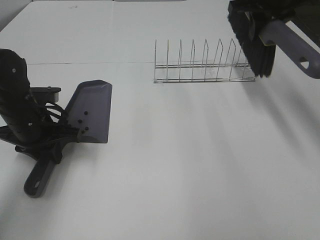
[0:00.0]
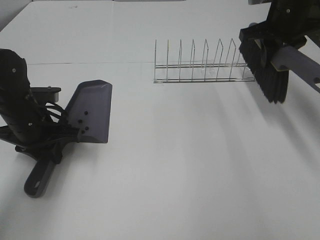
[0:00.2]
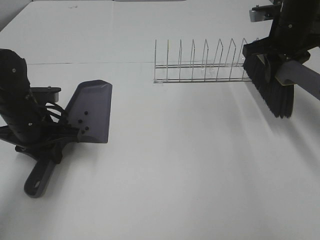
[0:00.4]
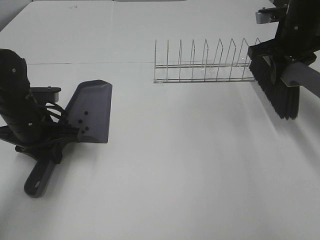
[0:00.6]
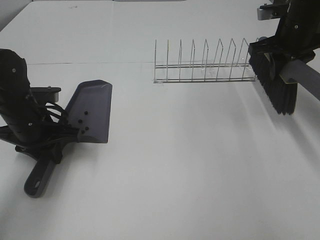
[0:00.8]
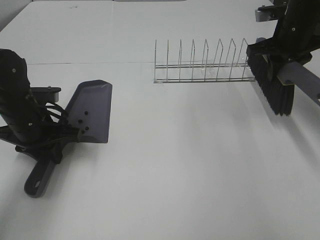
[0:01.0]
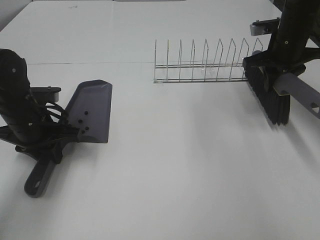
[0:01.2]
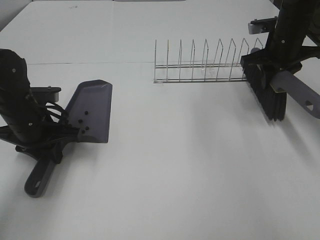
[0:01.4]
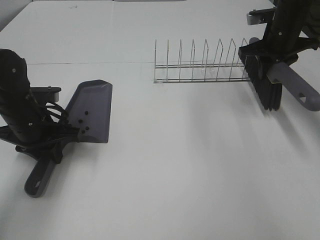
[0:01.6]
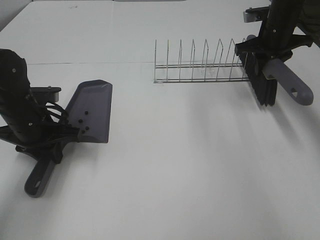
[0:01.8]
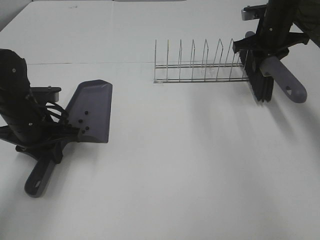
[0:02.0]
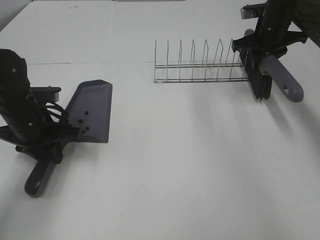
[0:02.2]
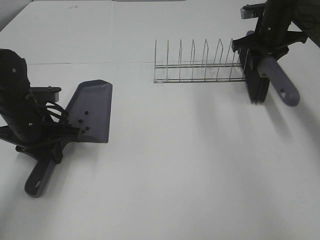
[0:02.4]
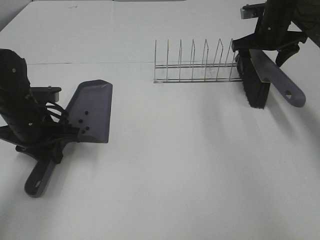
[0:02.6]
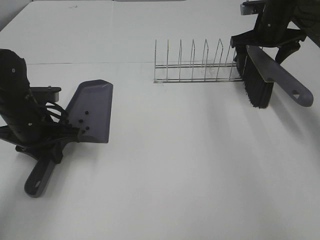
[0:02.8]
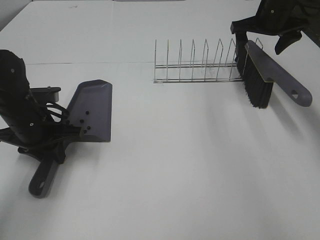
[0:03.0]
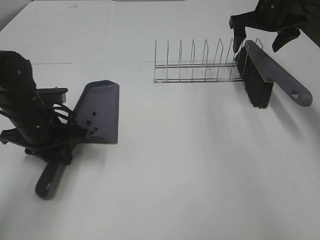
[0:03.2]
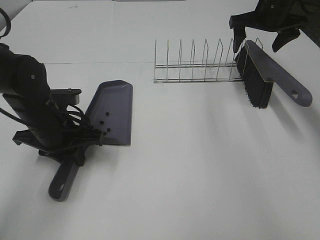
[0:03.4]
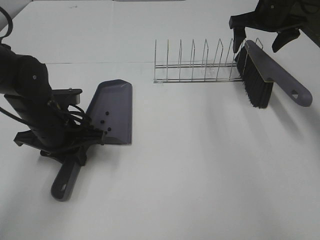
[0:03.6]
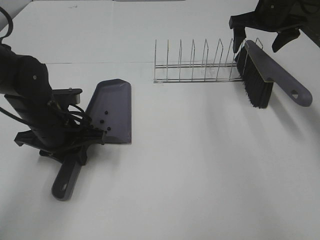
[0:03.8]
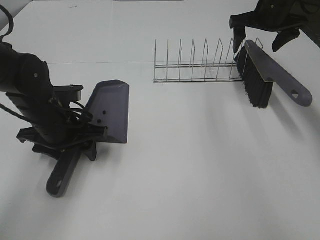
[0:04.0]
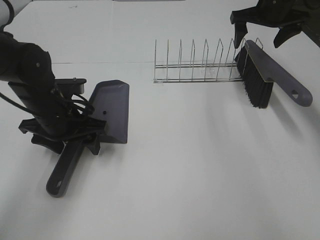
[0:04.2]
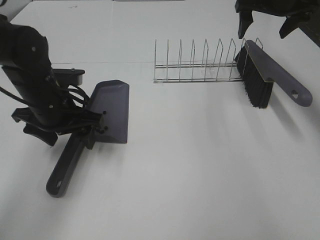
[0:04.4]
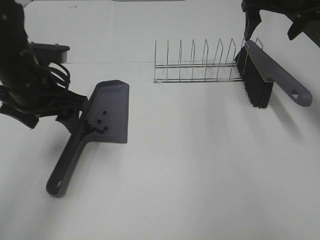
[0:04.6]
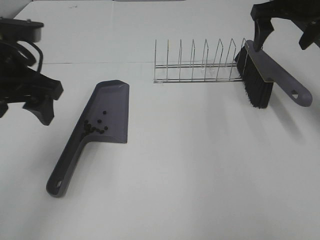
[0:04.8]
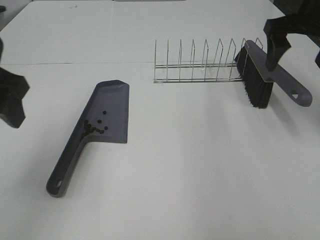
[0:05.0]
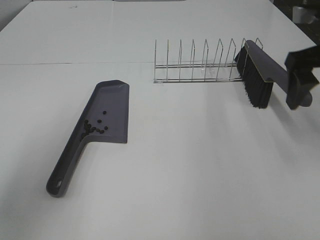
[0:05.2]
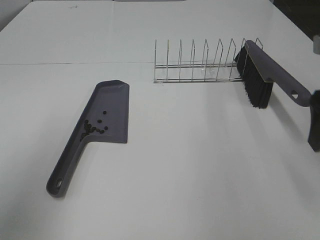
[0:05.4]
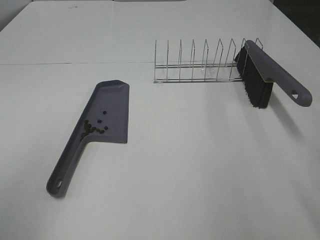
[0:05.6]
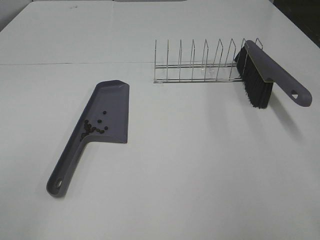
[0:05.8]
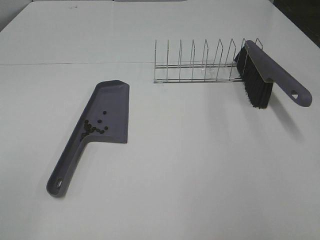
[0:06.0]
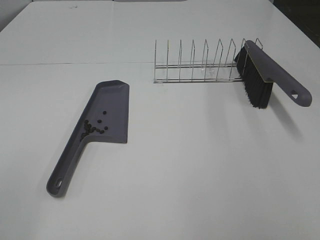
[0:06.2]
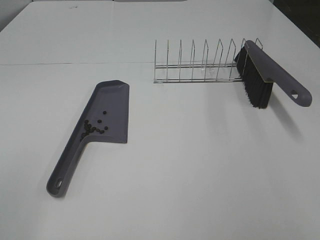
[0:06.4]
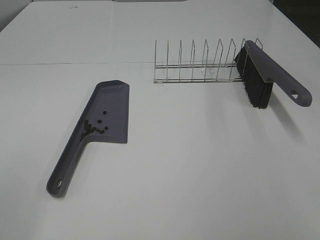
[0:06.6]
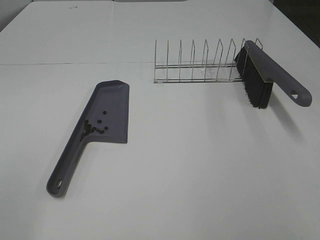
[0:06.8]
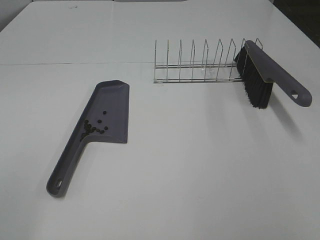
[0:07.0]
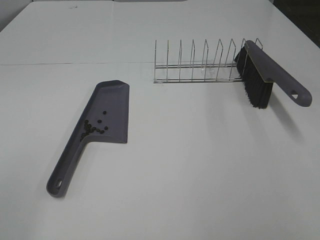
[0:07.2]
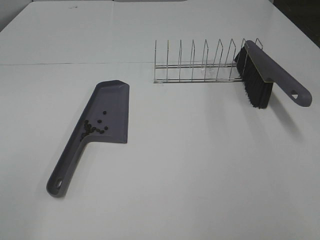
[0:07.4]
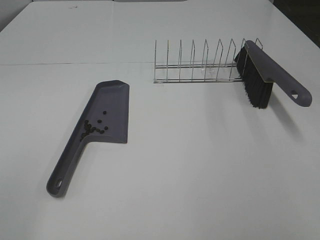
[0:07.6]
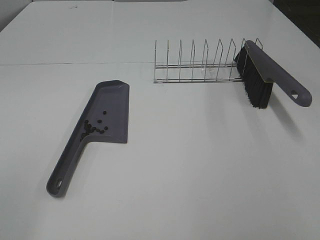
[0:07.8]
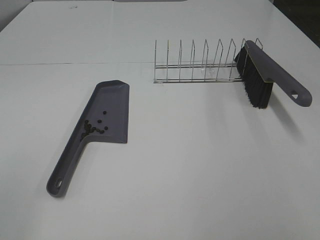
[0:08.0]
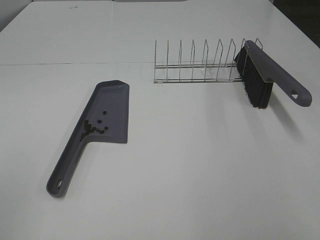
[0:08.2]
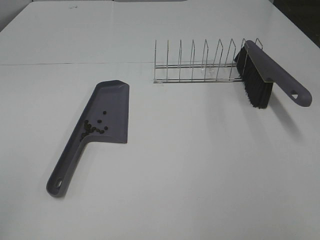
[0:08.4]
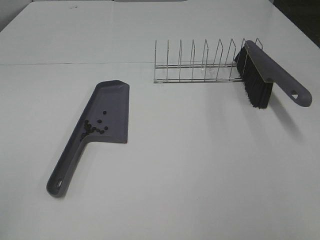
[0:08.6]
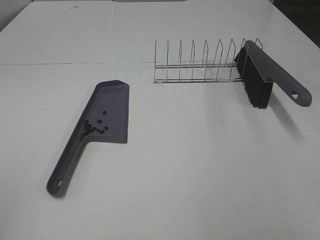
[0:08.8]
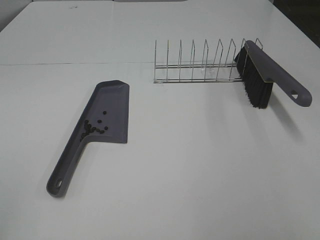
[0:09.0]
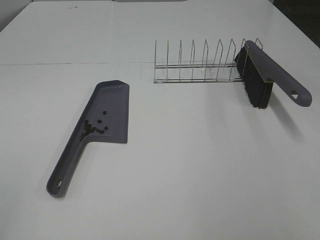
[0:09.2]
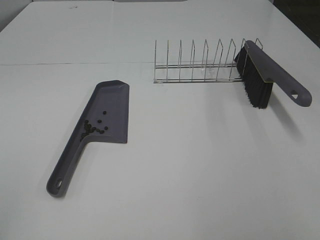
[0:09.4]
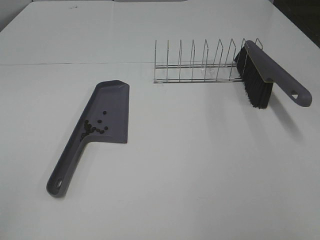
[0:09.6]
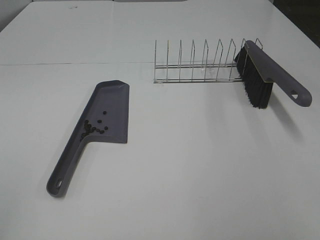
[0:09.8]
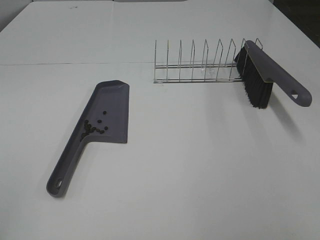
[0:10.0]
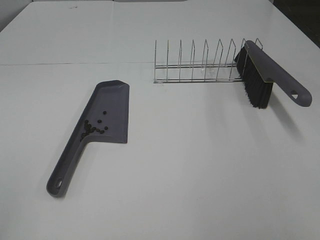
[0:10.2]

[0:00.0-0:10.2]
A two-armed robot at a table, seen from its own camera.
Task of the whole recording: Sweep Coffee Bean.
Step, 0:00.0 to 0:02.8: Right hand:place the broom on the rack.
Step, 0:03.0 to 0:04.2: Left hand:place the dustpan on the table.
0:00.0 to 0:01.4: The right gripper heads downward, covering some 10 cm.
0:01.4 to 0:03.0: The right gripper shifts some 5 cm forward, and opens up.
0:03.0 to 0:04.4: The right gripper ends up roughly 5 cm from where it was; the left gripper changes place by roughly 5 cm, and opens.
0:04.4 to 0:05.8: The right gripper shifts roughly 40 cm backward, while the left gripper travels backward, upward and to the left by about 35 cm.
0:08.8 to 0:10.2: The two grippers keep their place.

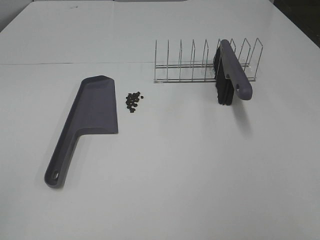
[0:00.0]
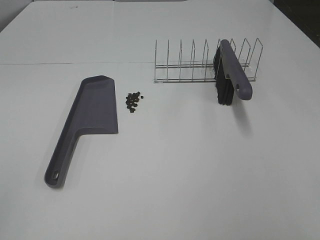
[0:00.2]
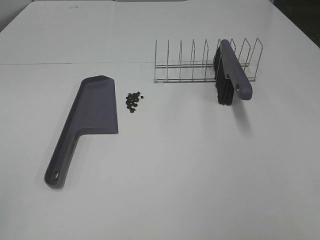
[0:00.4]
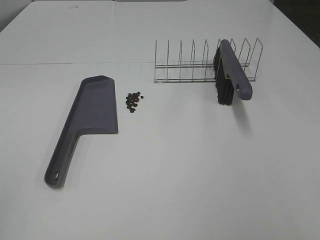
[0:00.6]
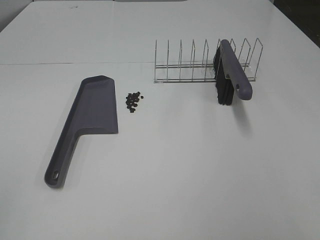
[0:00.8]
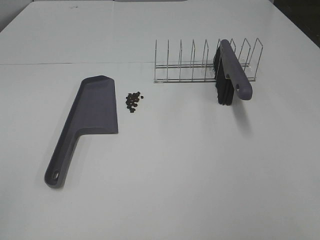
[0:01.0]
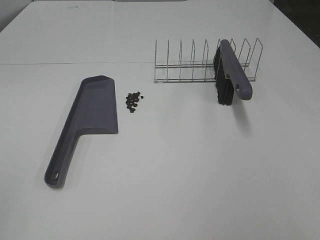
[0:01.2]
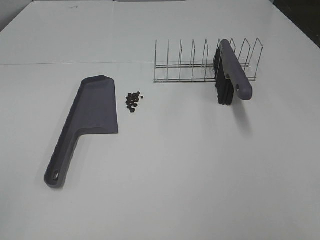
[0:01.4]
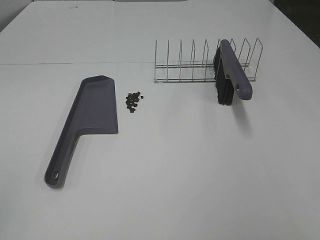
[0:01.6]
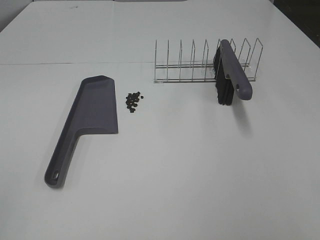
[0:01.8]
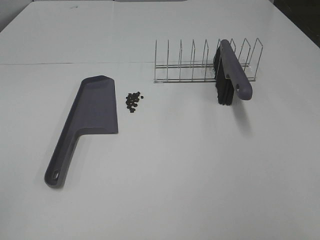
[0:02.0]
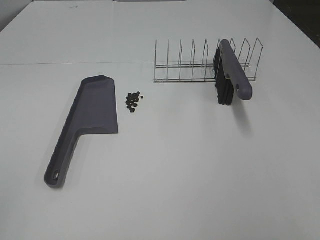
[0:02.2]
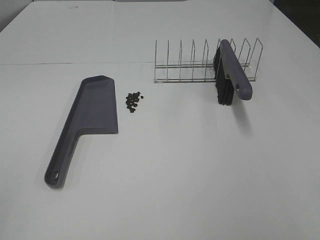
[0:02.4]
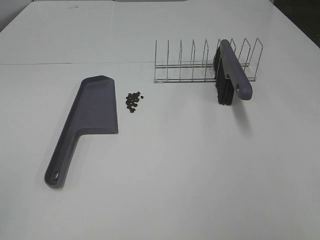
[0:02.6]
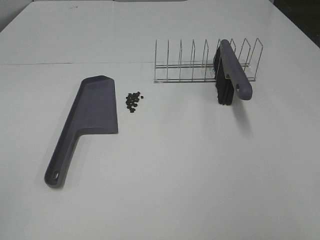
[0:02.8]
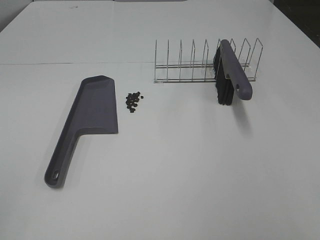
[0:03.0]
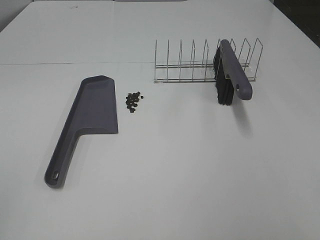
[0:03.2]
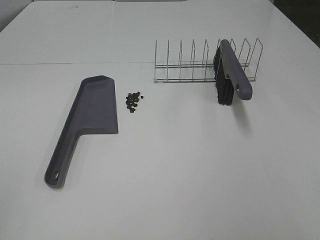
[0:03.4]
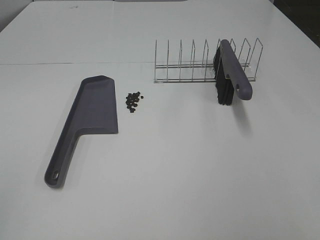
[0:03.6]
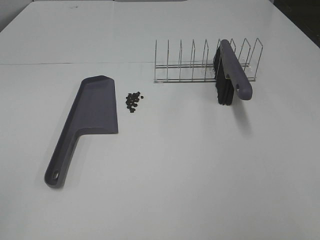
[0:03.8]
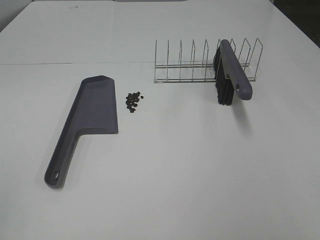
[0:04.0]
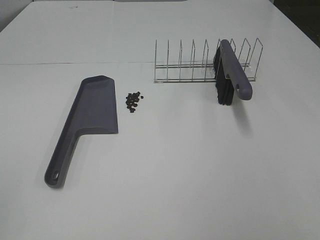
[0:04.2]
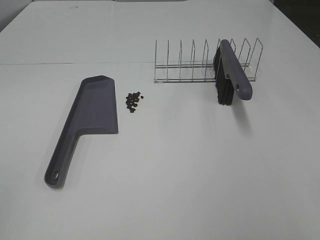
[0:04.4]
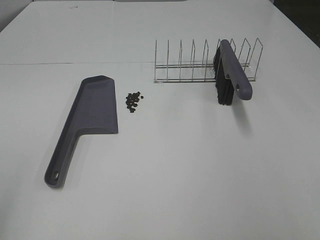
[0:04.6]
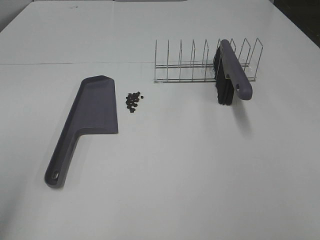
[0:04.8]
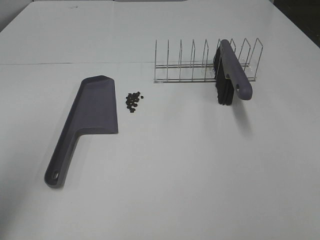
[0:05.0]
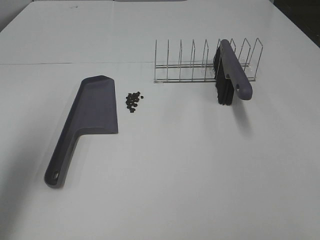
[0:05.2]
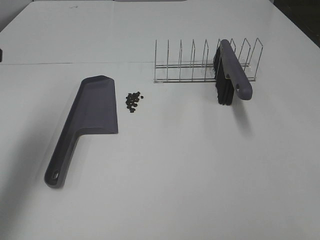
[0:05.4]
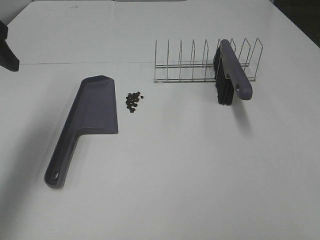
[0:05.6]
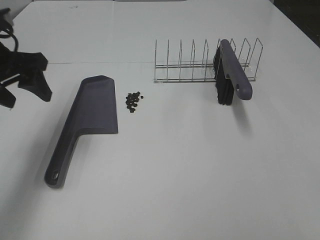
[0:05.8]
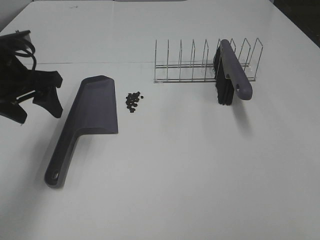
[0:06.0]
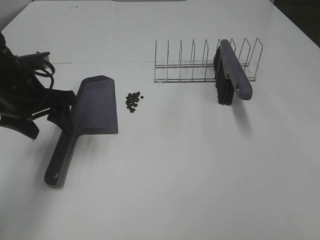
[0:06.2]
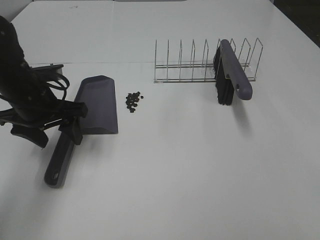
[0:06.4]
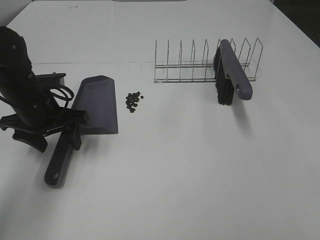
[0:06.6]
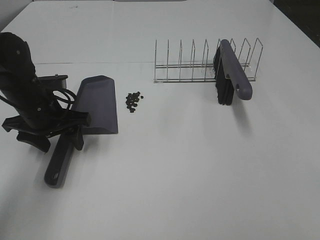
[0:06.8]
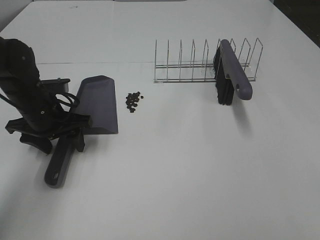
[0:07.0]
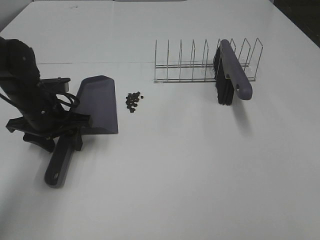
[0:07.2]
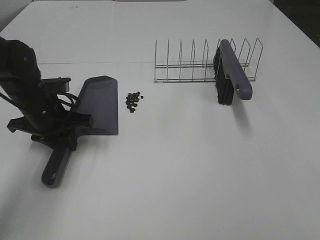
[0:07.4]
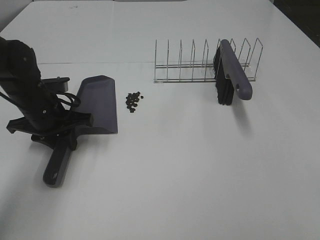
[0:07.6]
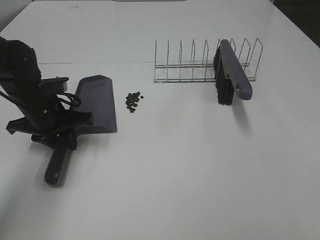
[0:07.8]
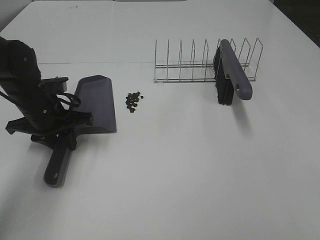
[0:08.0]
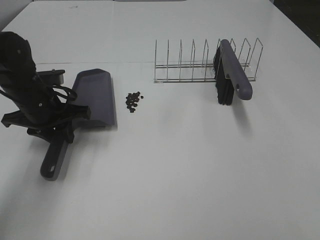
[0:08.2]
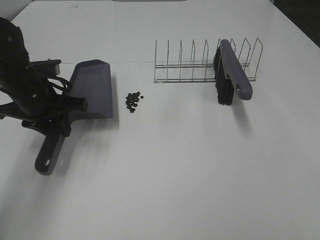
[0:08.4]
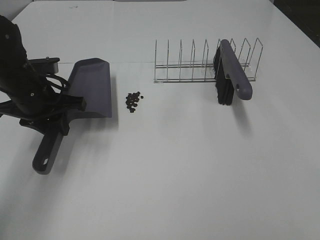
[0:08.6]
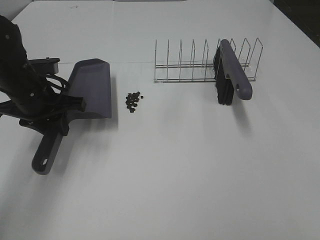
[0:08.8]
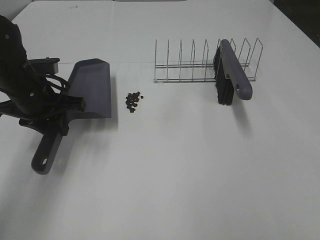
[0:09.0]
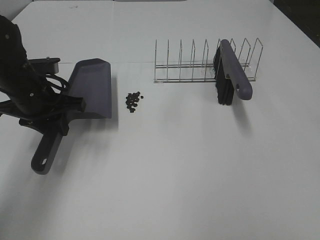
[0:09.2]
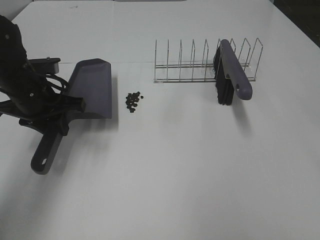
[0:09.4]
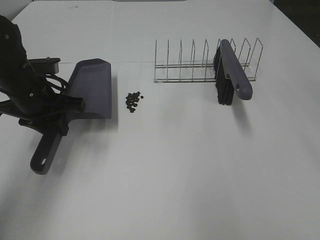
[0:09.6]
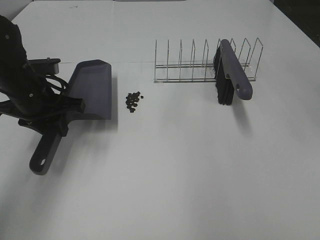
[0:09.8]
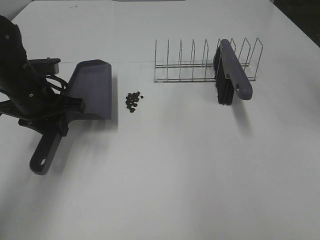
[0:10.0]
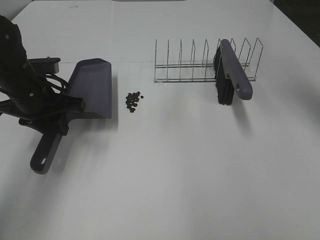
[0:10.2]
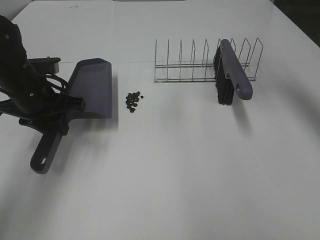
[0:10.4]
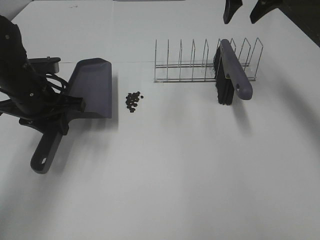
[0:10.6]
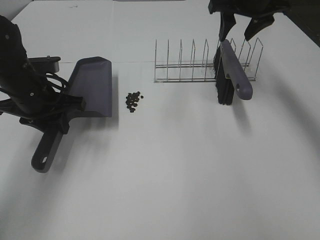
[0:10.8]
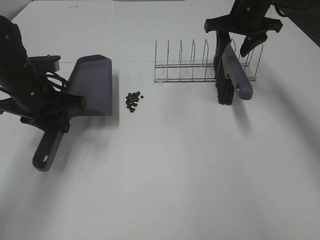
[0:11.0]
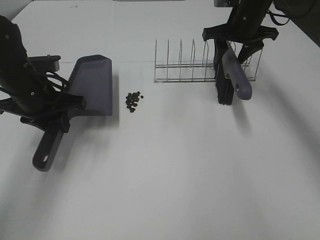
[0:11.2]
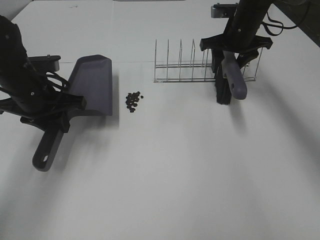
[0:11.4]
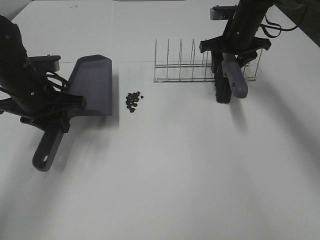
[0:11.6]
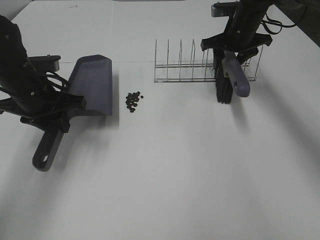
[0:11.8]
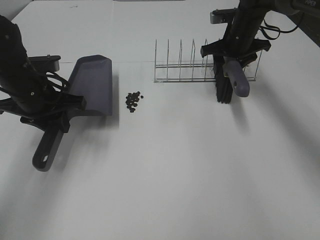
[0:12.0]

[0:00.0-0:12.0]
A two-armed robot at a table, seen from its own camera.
Task of the whole recording: Sweep Coffee Bean.
Step, 0:00.0 to 0:07.4: Left hand: grab the dustpan.
0:00.0 to 0:03.0: The two grippers keep their place.
0:04.4 to 0:06.0: The left gripper goes roughly 35 cm forward.
0:06.0 to 0:07.6: The left gripper heads downward, covering about 10 cm, and closes its fingers.
0:09.0 to 0:10.4: The right gripper moves forward, some 40 cm, and closes.
0:10.4 to 0:12.0: The right gripper goes some 20 cm downward.
